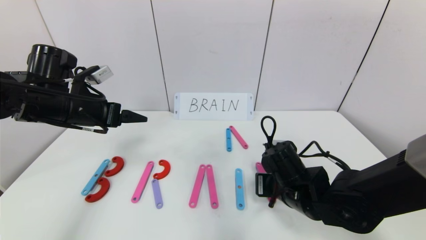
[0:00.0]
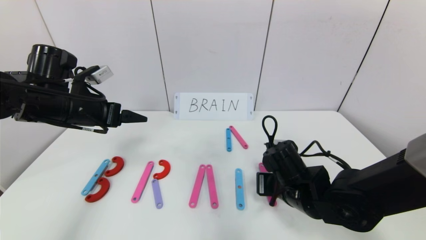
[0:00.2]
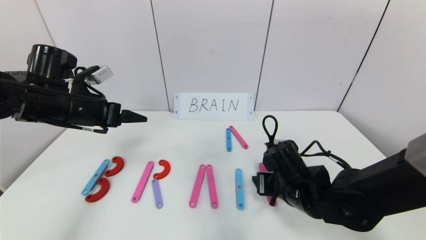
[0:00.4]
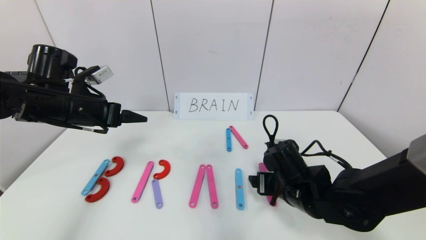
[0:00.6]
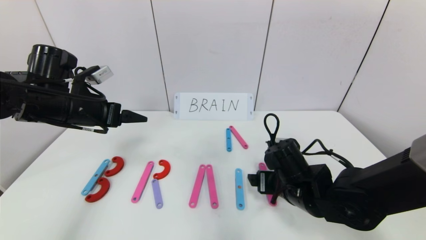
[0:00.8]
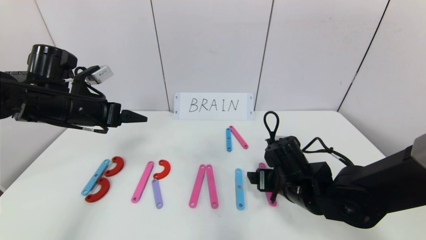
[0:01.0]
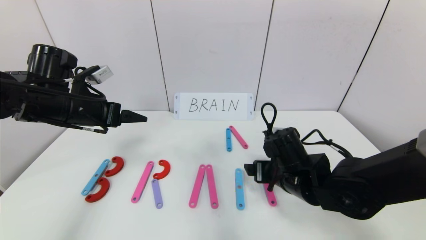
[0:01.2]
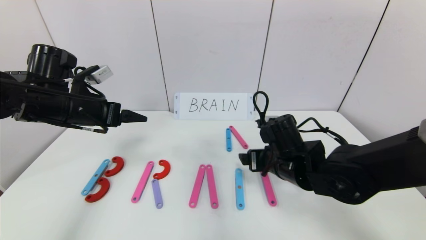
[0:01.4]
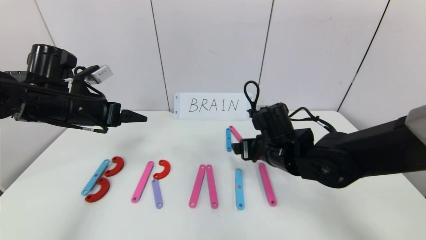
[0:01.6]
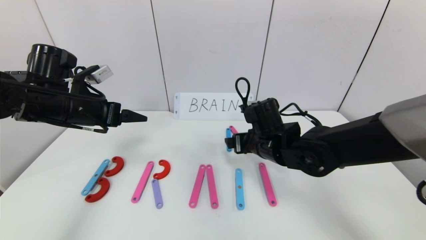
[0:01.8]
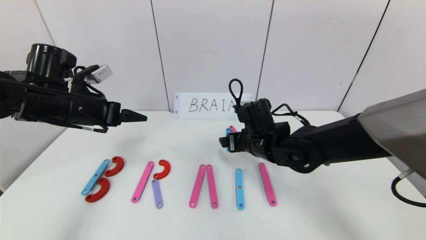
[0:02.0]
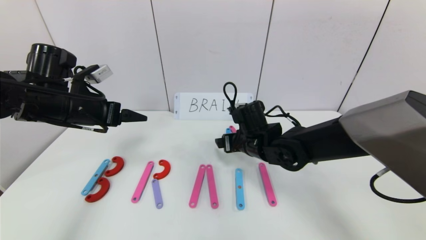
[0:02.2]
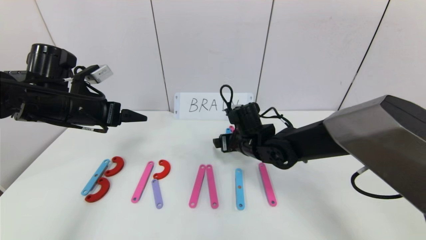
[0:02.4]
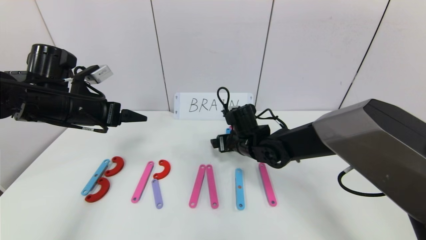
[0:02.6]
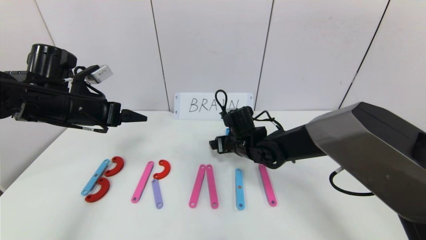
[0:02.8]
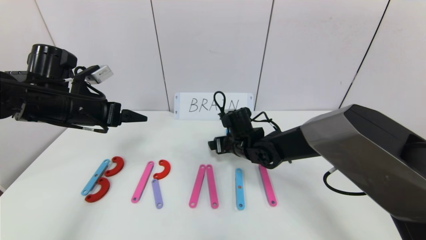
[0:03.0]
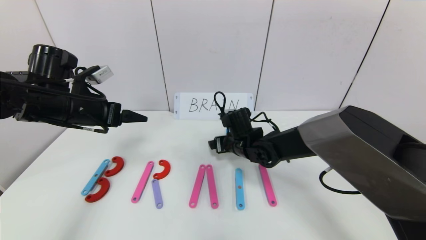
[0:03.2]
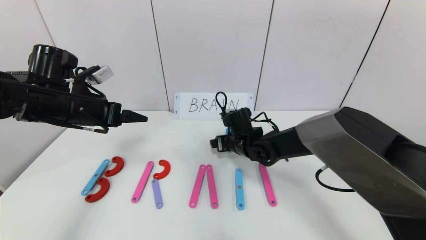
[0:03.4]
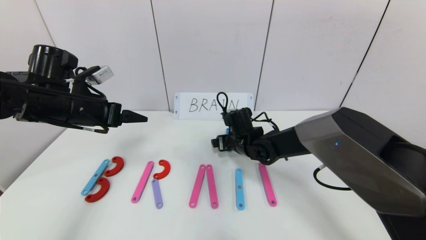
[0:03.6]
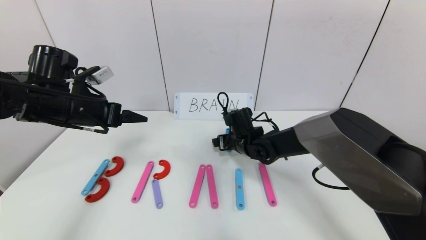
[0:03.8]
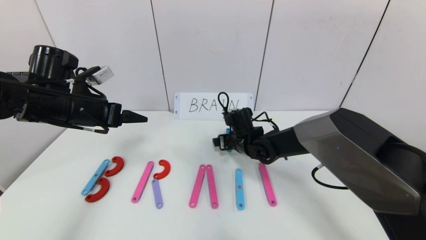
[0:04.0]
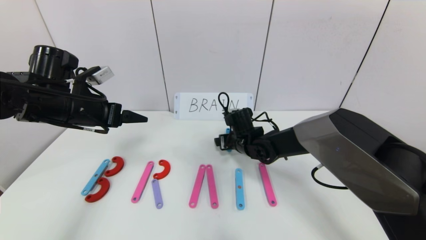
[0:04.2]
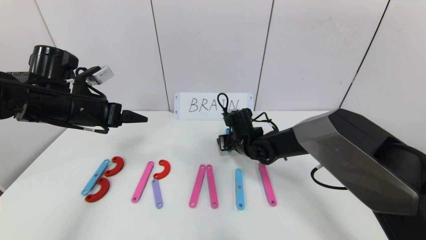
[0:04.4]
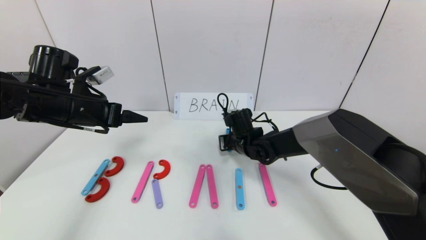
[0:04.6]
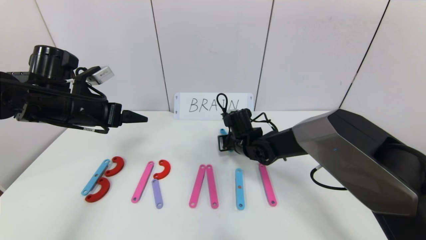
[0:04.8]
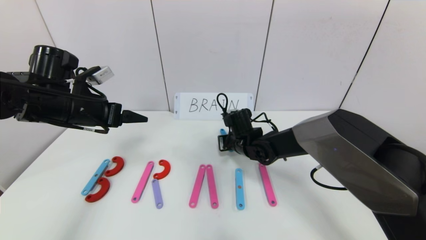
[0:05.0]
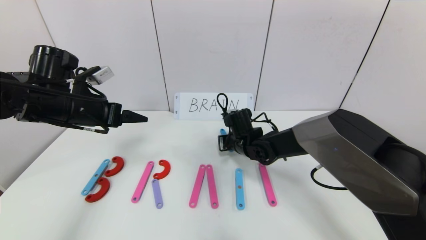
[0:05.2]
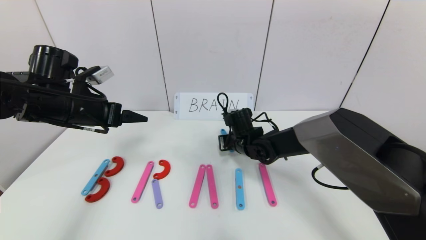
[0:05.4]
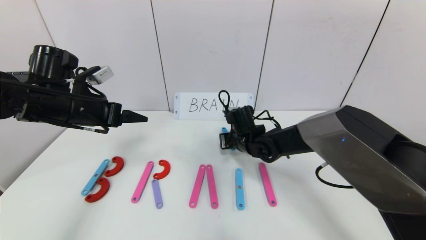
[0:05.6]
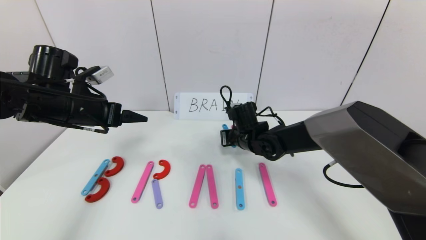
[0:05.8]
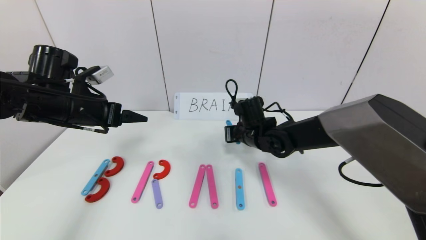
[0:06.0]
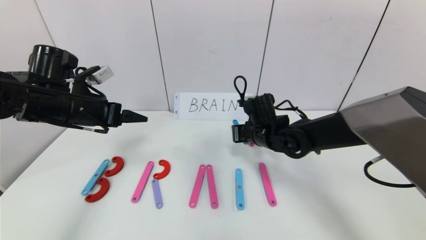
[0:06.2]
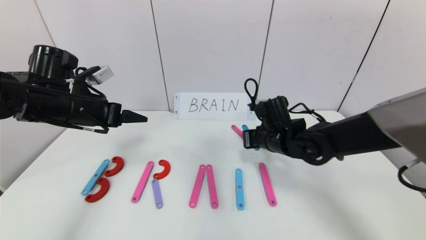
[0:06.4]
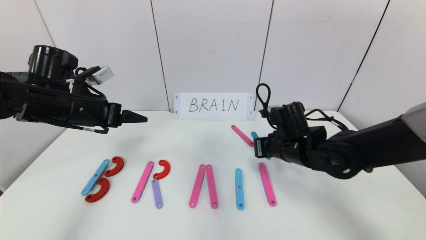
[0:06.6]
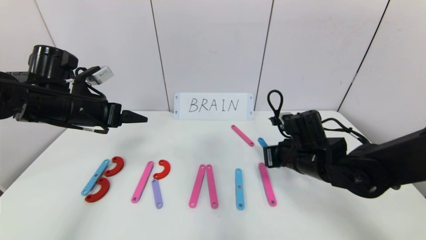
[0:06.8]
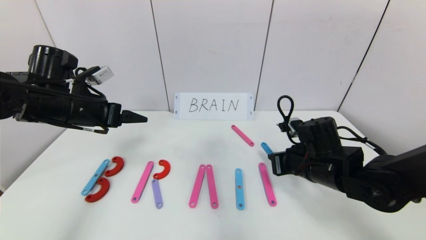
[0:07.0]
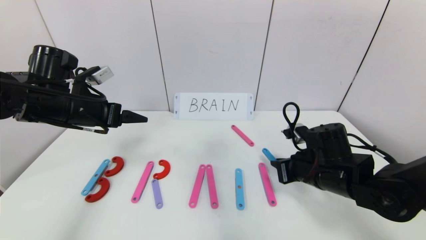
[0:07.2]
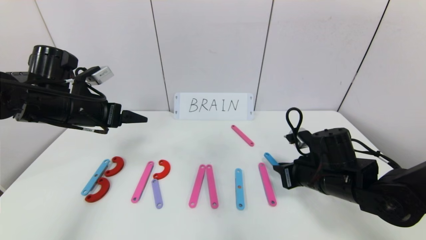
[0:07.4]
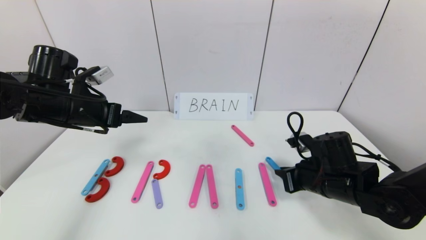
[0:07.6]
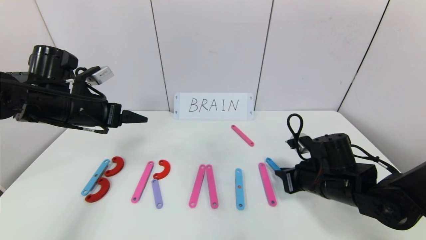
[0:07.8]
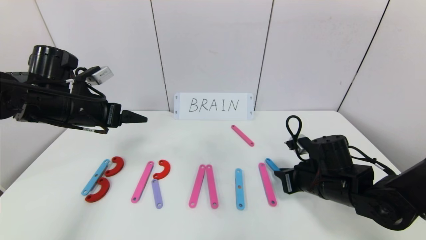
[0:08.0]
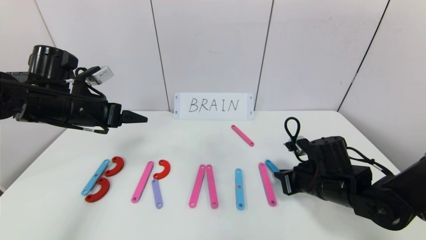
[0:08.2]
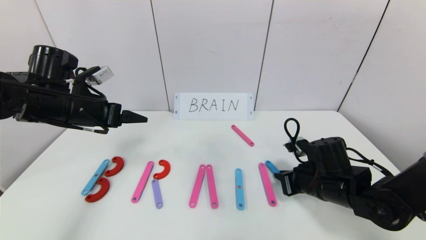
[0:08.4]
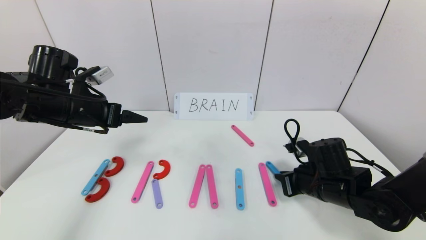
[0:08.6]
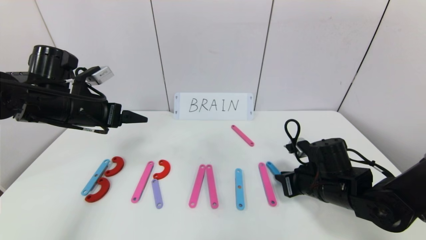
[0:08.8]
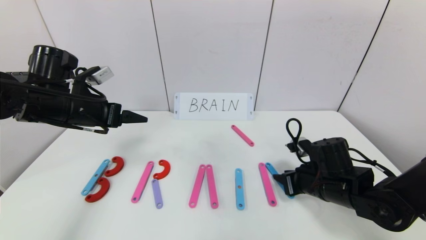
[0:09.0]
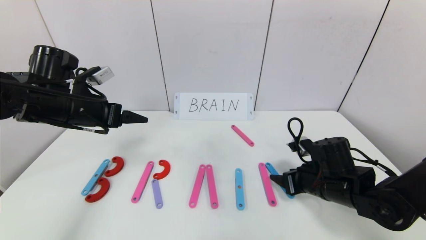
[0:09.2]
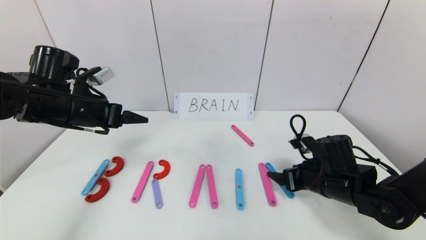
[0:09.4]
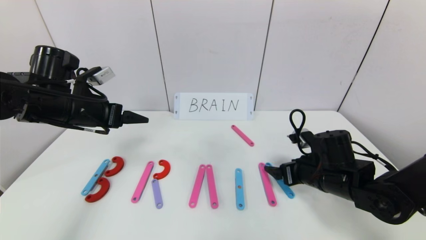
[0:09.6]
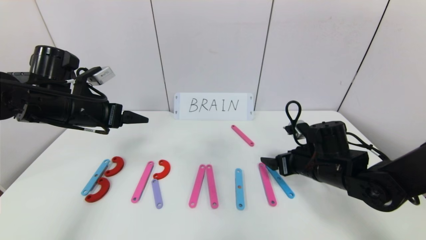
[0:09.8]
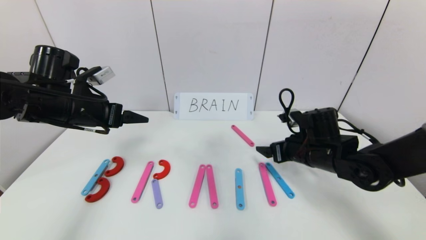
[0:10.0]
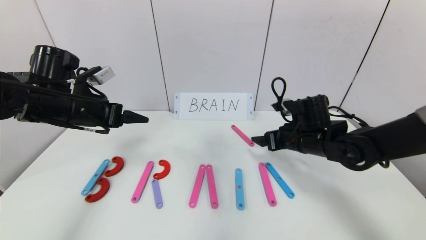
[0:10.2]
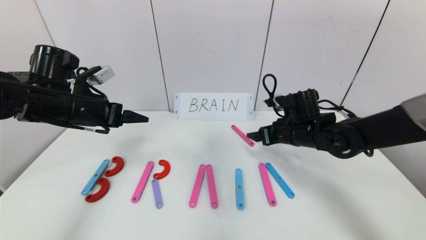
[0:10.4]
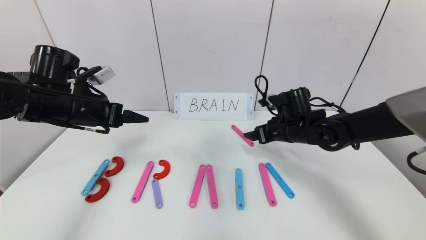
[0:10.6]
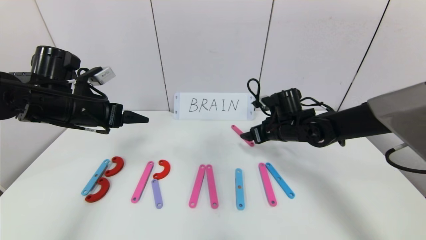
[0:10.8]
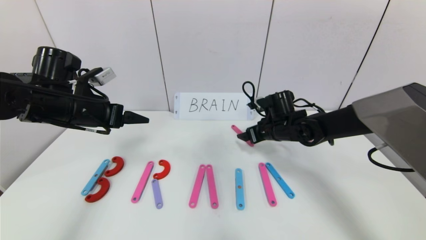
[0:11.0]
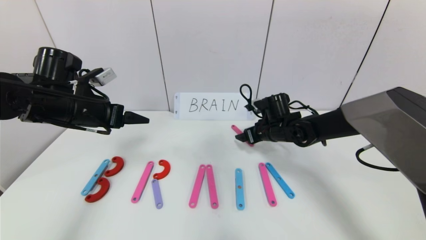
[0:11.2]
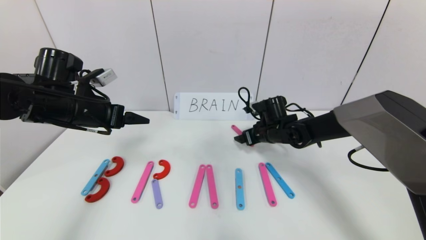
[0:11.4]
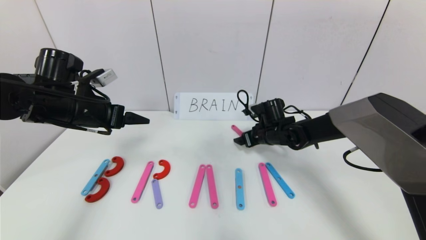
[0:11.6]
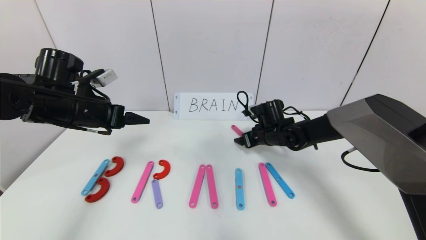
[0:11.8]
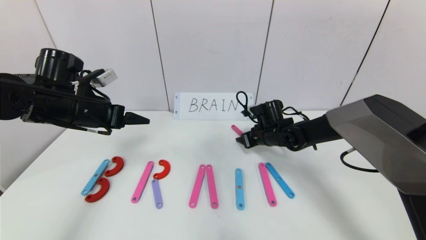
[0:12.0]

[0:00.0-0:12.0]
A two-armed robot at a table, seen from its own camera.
Task of the whole recording: rearrange the word baai as brain.
0:00.0 to 0:01.6: The right gripper is displaced upward and forward by approximately 10 cm, and opens.
0:01.6 to 0:03.0: The right gripper moves forward, to the left and downward, roughly 10 cm.
0:03.0 to 0:04.4: The right gripper closes up.
0:04.4 to 0:06.0: The right gripper shifts by roughly 5 cm, and closes.
0:06.0 to 0:07.6: The right gripper travels to the right and backward by about 20 cm.
0:07.6 to 0:09.0: There are only small adjustments of the grippers.
0:09.0 to 0:10.4: The right gripper heads forward and upward, covering about 10 cm, and opens.
0:10.4 to 0:12.0: The right gripper shifts about 10 cm forward and downward, and closes its fingers.

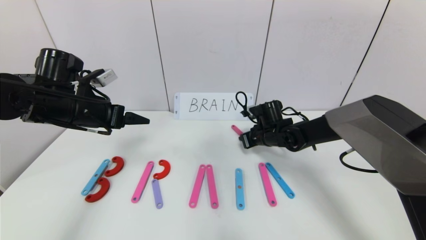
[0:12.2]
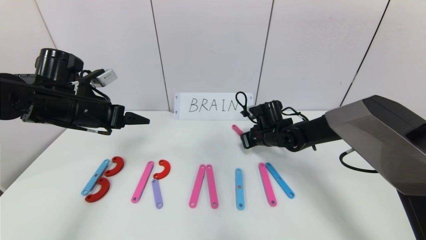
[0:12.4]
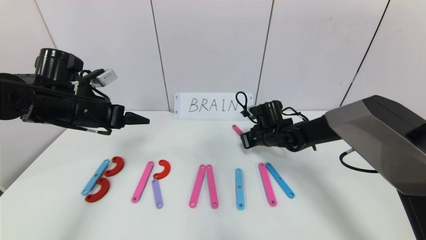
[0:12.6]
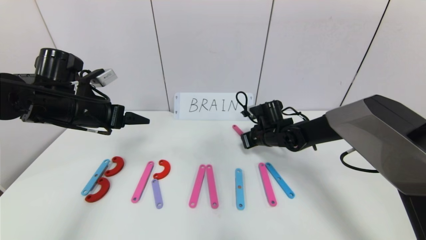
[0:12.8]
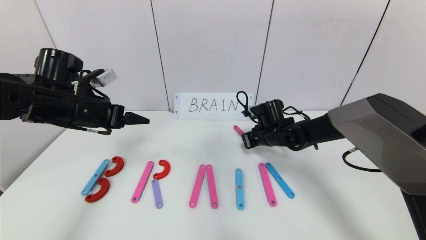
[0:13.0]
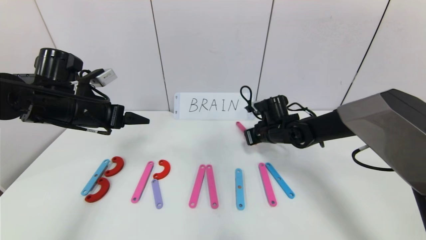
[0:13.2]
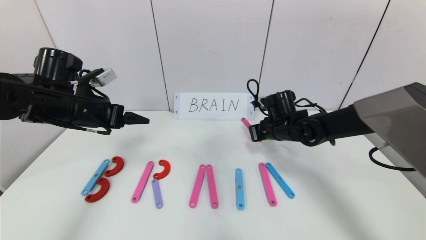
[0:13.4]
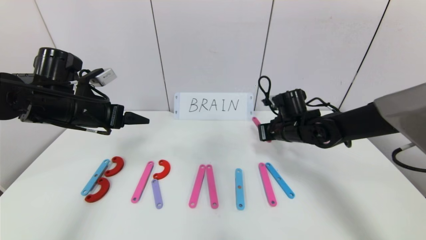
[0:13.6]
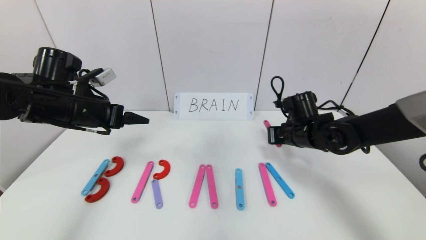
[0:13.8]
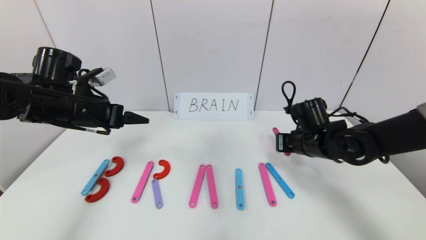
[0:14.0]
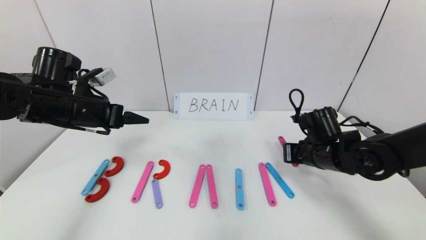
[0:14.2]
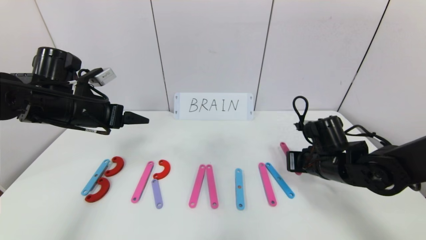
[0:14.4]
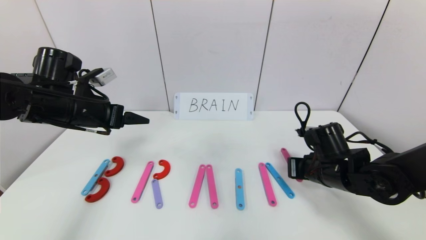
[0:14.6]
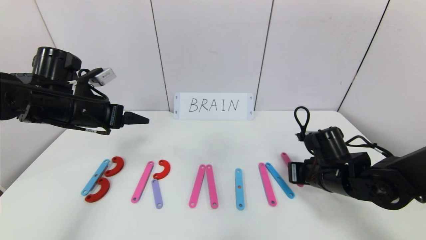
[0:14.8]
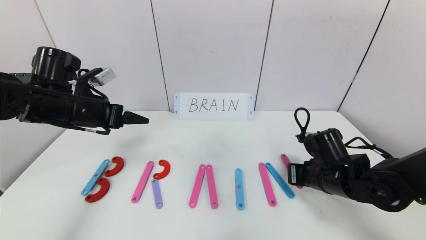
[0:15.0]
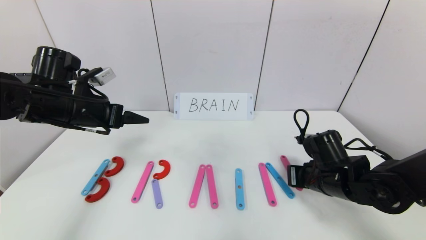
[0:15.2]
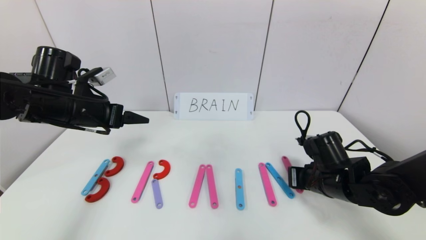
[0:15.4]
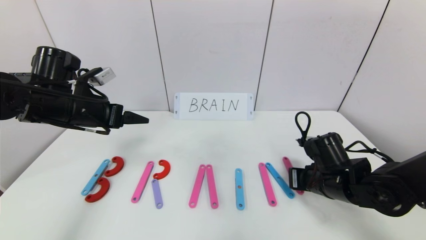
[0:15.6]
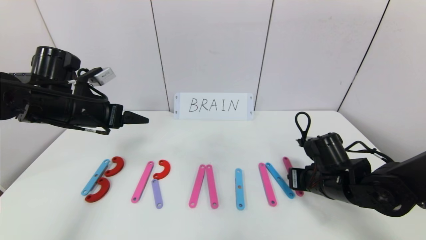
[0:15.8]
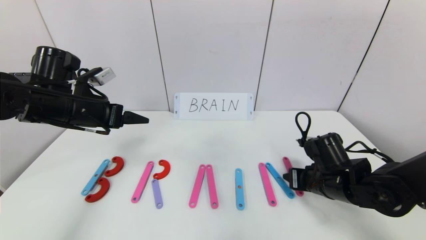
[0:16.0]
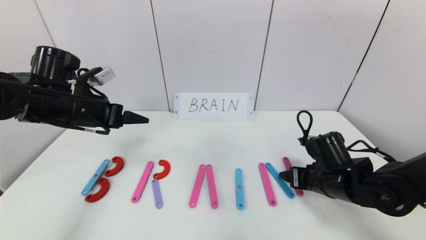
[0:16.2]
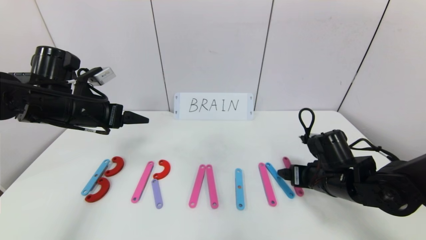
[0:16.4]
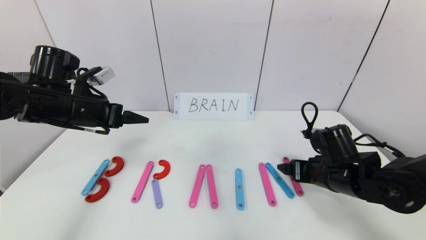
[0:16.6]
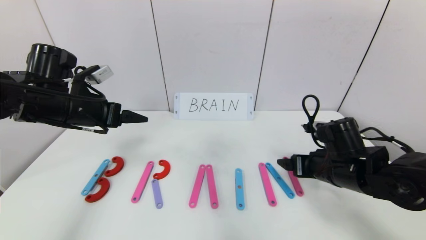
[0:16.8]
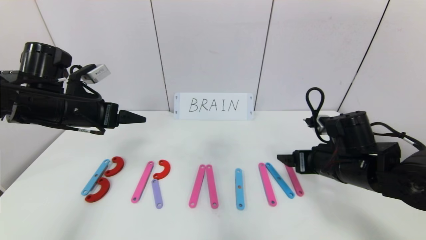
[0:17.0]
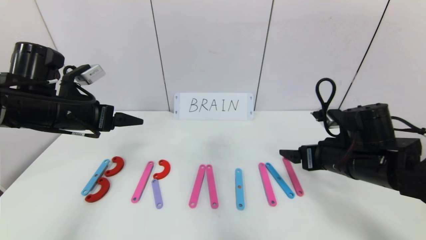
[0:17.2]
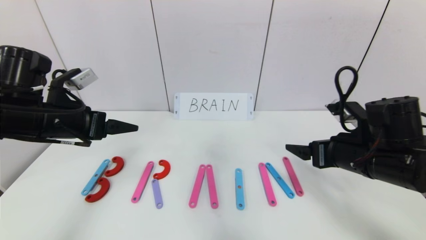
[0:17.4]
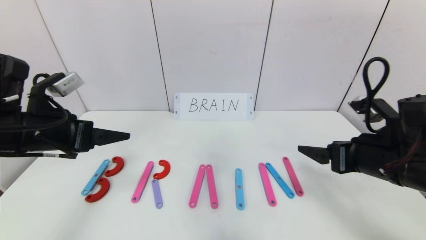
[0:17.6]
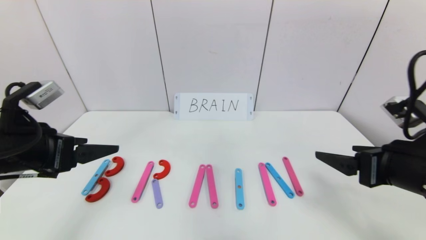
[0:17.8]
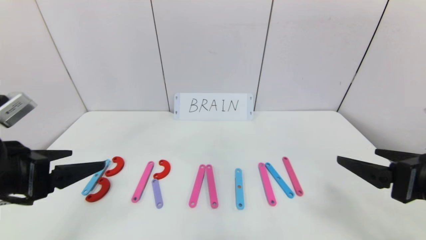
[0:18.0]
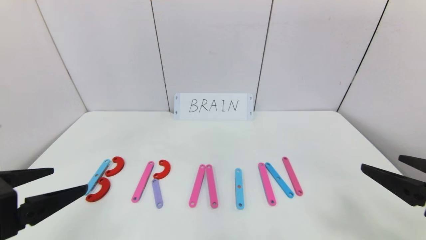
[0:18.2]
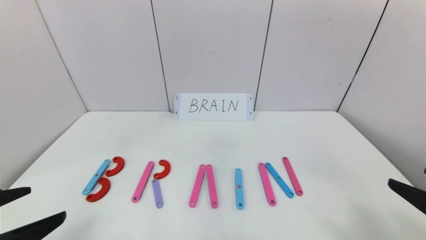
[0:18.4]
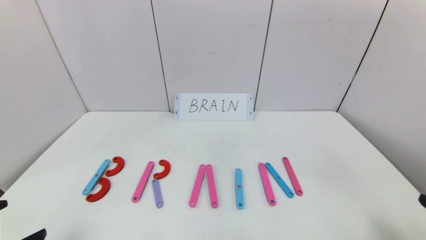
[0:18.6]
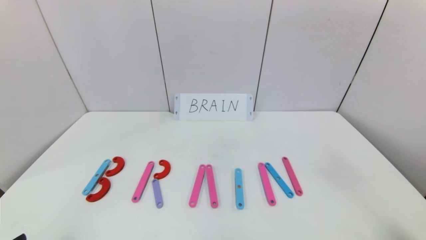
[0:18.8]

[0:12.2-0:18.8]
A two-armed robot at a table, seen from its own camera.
Task of the whole recording: rearrange the word baai as brain.
Step, 0:12.2 to 0:16.4: Place the character N after character I.
0:12.2 to 0:13.8: The right gripper travels backward and upward by approximately 10 cm.
0:13.8 to 0:15.4: The right gripper moves backward, some 10 cm.
0:15.4 to 0:17.2: The right gripper goes about 5 cm upward, and opens its fingers.
0:17.2 to 0:18.8: The right gripper shifts about 25 cm backward and to the right, while the left gripper moves backward, approximately 30 cm.
